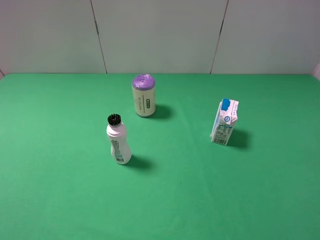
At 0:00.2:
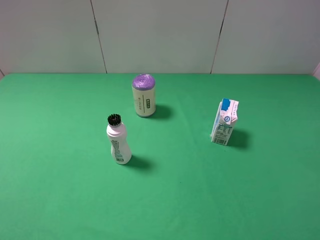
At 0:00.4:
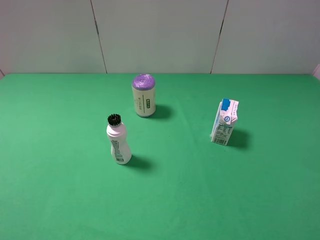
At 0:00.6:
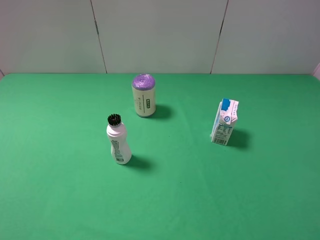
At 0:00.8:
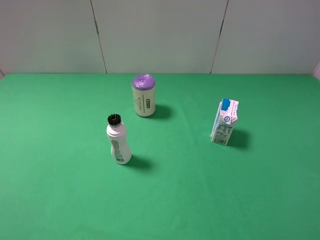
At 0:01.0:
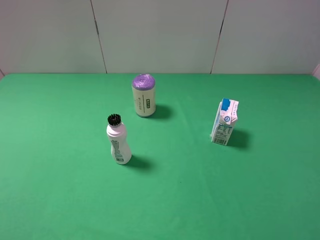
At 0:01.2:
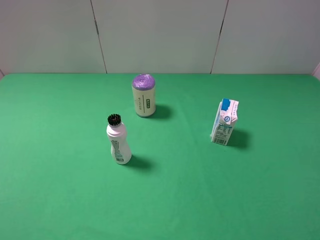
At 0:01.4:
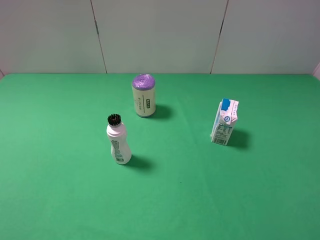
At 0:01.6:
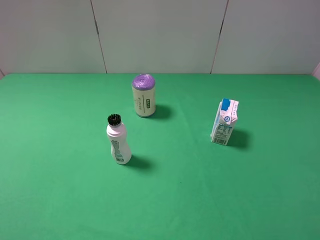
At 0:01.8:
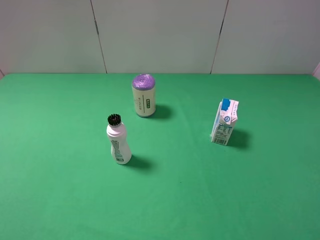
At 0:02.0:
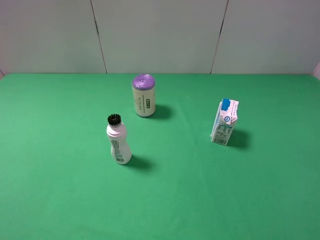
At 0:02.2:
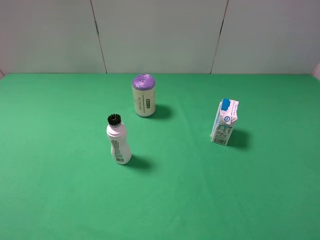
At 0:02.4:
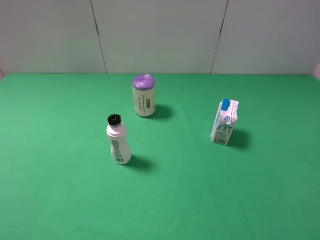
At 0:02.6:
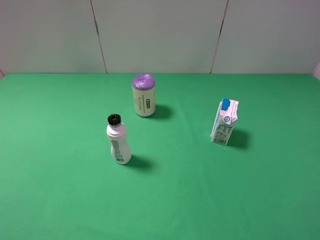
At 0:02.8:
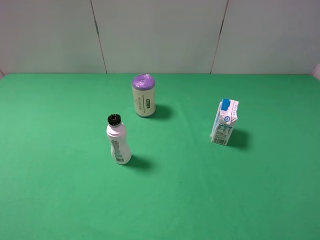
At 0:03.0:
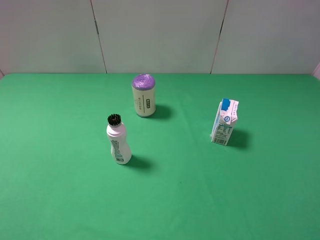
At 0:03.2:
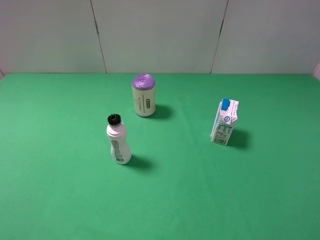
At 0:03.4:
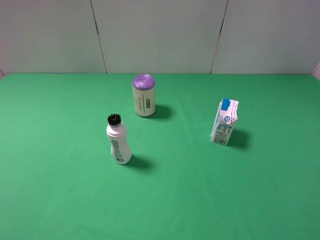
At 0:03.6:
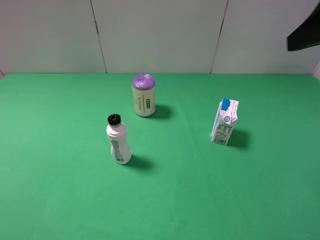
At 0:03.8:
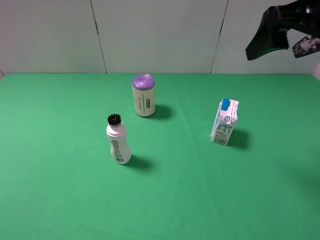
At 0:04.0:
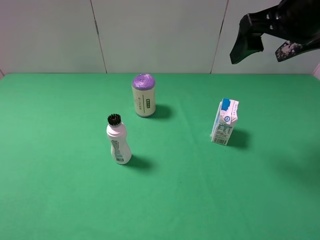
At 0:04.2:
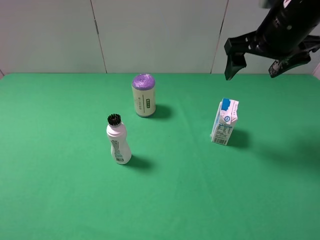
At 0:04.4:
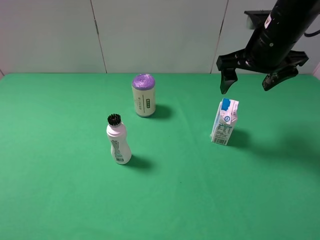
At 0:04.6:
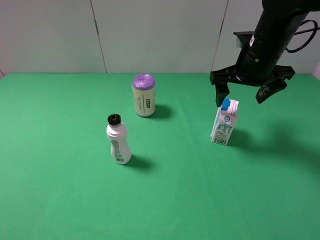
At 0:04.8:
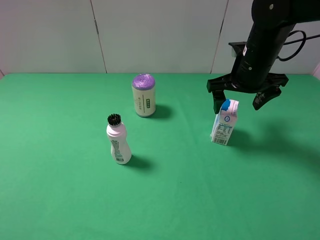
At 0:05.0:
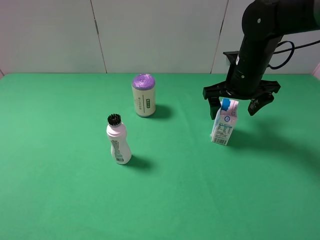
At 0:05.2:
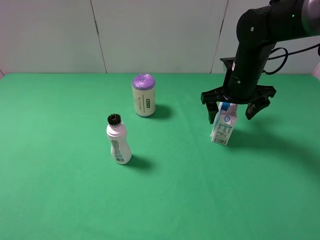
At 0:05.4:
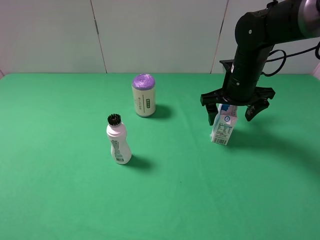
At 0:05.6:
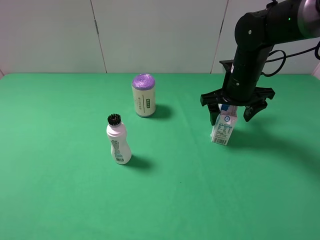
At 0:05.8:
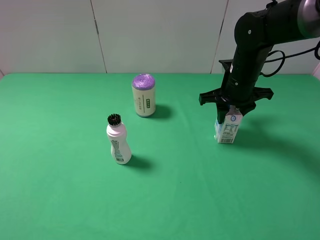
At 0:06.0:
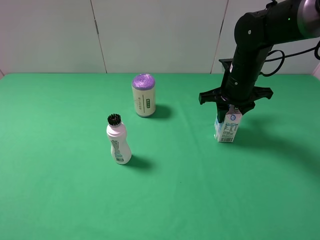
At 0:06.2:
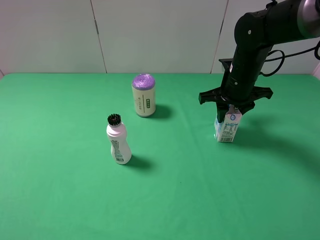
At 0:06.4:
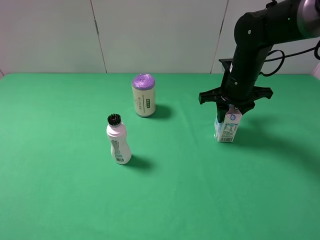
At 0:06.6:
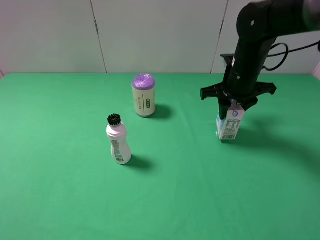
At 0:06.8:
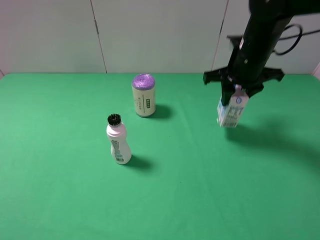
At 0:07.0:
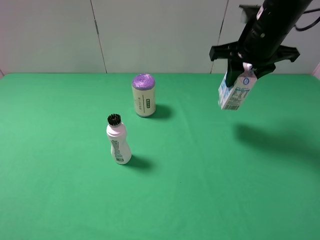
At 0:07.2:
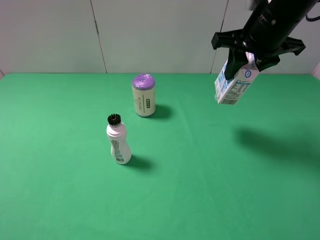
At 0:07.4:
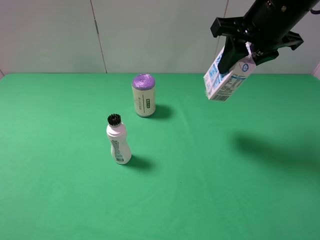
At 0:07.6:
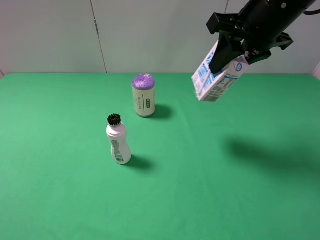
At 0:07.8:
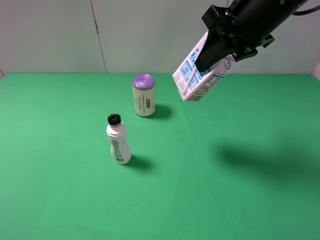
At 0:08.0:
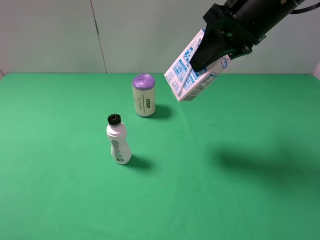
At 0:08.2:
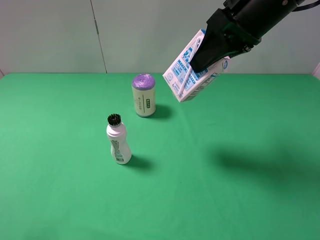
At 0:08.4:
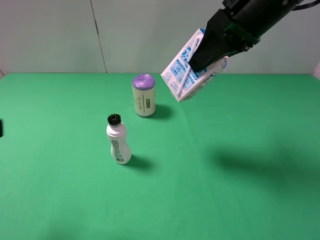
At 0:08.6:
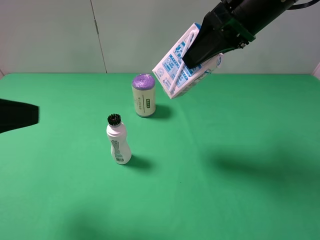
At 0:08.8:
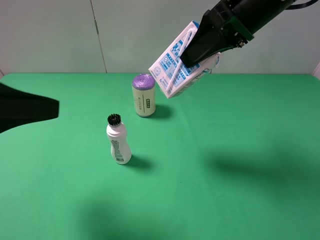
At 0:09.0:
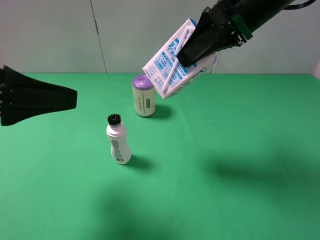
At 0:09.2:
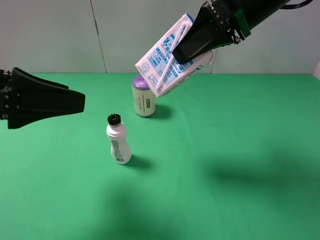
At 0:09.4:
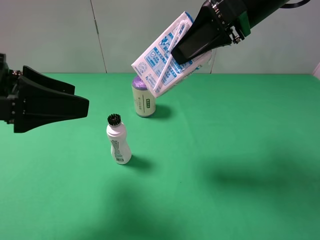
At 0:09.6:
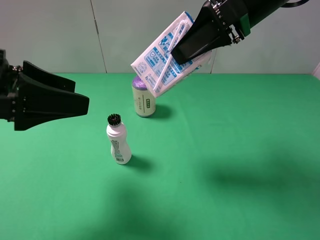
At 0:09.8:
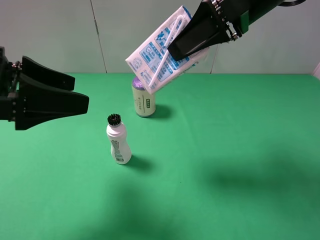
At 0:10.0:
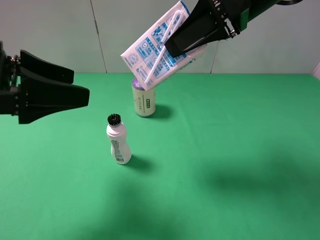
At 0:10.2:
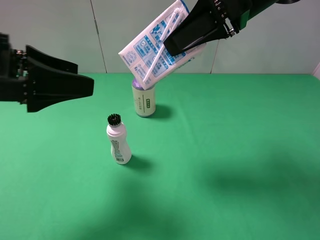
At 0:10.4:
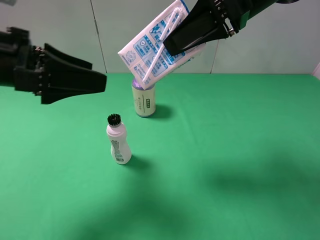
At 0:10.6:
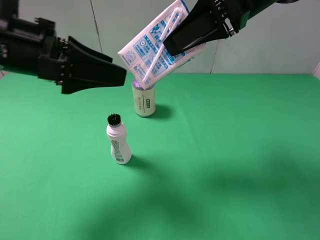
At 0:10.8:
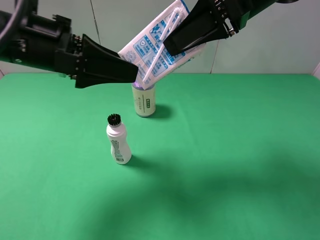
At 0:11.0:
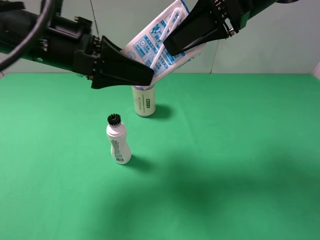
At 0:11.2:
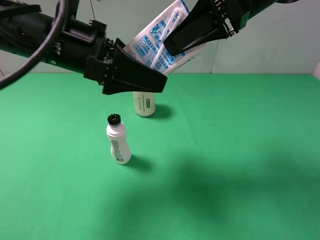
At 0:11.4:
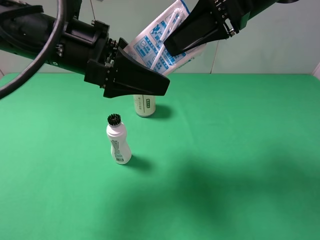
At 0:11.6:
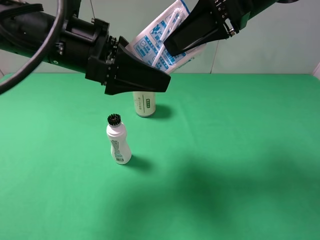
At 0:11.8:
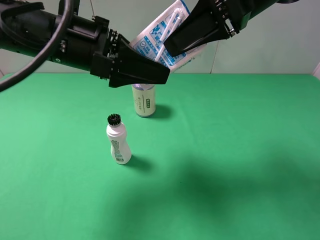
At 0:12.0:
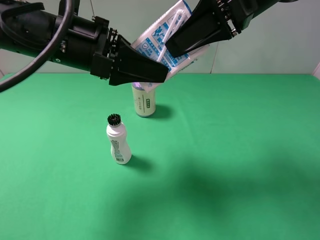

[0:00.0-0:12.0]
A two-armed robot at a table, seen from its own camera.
Task of the whole recording: use the right gripper to pick up the item and transfer it from the right gripper to the left gripper.
0:00.0 to 0:01.6: The two grippers keep their place.
0:03.0 to 0:04.4: The right gripper heads forward, downward and to the left, covering approximately 30 cm.
0:04.4 to 0:06.0: The right gripper travels downward by roughly 10 cm, and closes its fingers.
0:06.0 to 0:07.6: The right gripper shifts approximately 15 cm upward.
0:07.6 to 0:09.0: The left gripper heads forward and to the right, covering approximately 15 cm.
0:09.0 to 0:10.4: The left gripper shifts some 5 cm forward.
0:10.4 to 0:12.0: The left gripper goes about 10 cm to the right, and closes.

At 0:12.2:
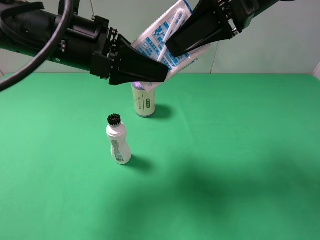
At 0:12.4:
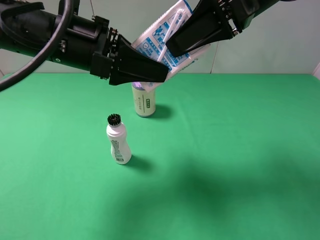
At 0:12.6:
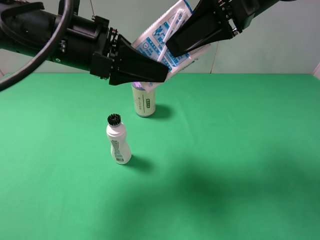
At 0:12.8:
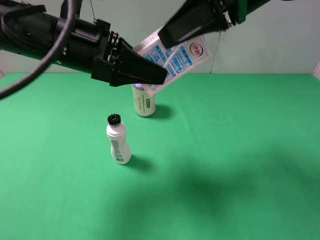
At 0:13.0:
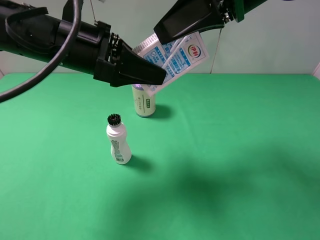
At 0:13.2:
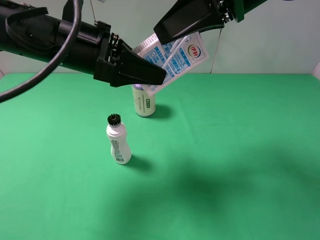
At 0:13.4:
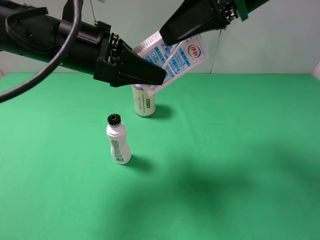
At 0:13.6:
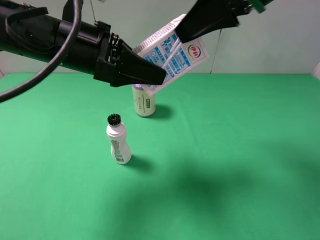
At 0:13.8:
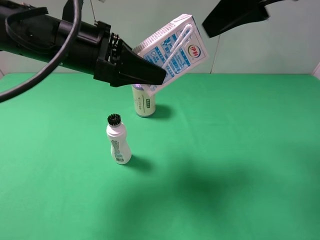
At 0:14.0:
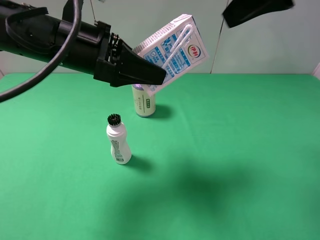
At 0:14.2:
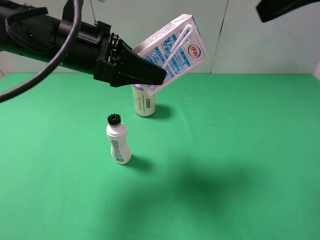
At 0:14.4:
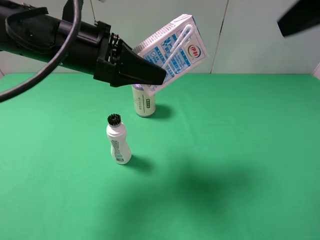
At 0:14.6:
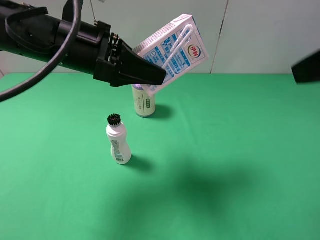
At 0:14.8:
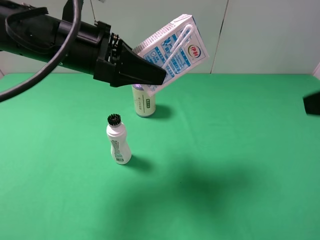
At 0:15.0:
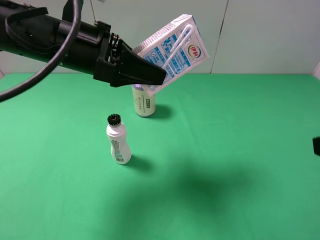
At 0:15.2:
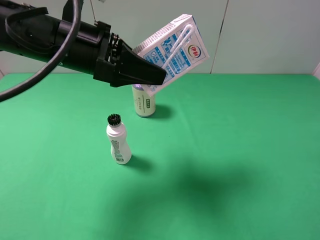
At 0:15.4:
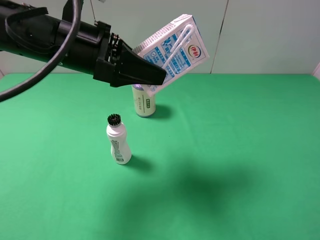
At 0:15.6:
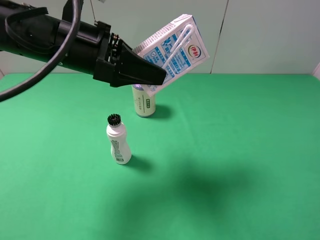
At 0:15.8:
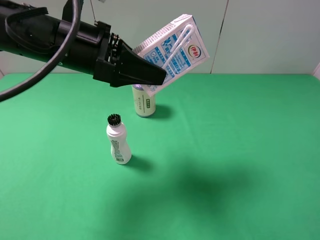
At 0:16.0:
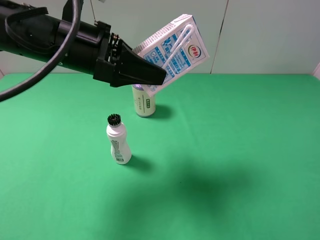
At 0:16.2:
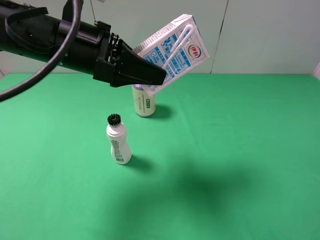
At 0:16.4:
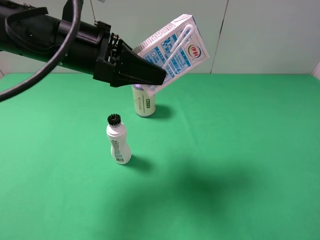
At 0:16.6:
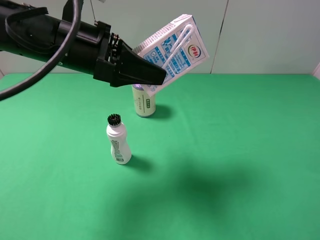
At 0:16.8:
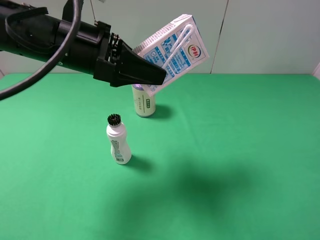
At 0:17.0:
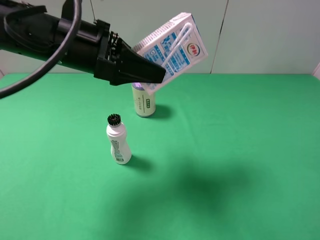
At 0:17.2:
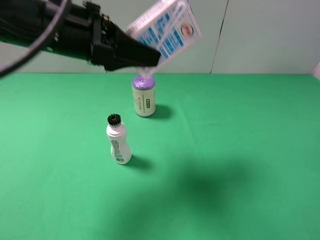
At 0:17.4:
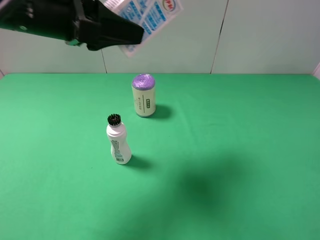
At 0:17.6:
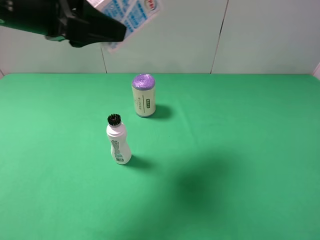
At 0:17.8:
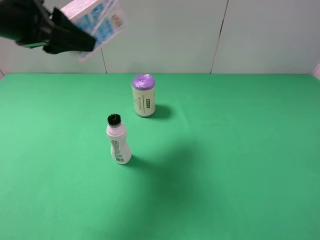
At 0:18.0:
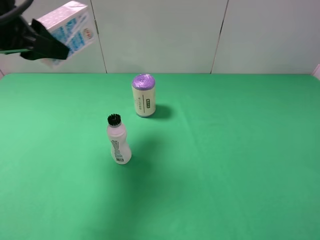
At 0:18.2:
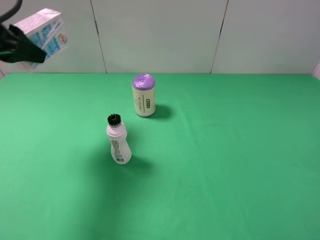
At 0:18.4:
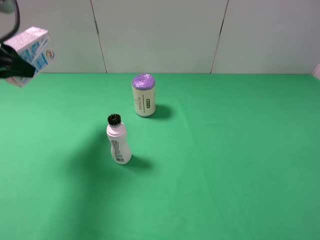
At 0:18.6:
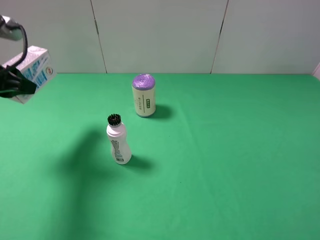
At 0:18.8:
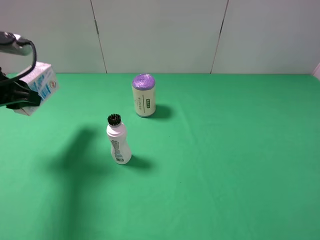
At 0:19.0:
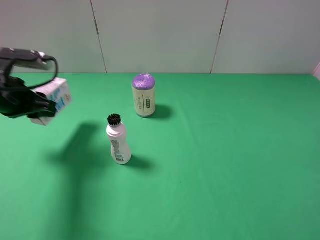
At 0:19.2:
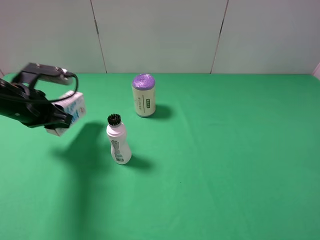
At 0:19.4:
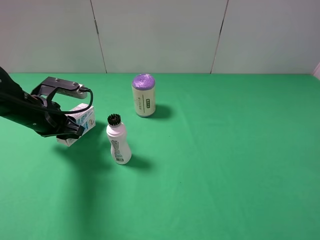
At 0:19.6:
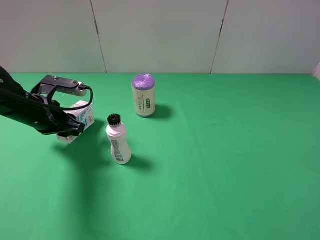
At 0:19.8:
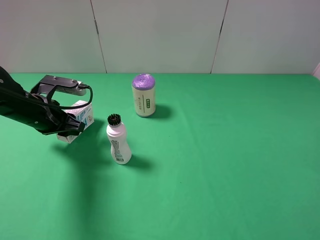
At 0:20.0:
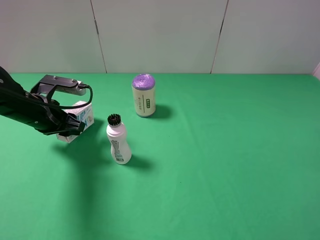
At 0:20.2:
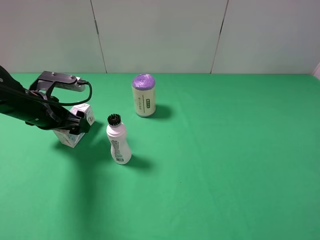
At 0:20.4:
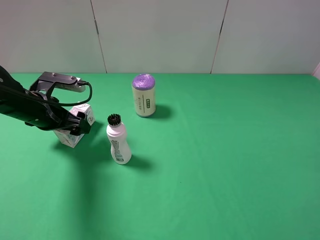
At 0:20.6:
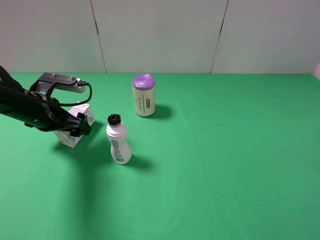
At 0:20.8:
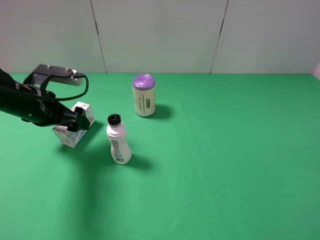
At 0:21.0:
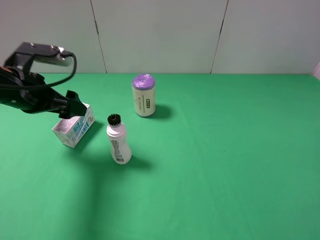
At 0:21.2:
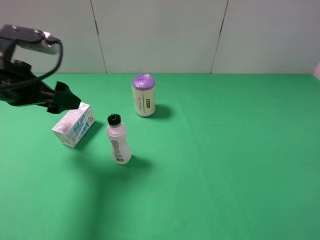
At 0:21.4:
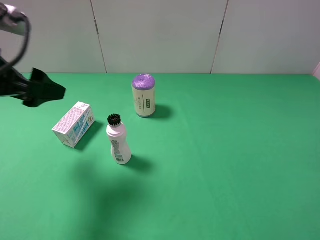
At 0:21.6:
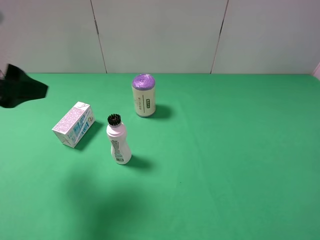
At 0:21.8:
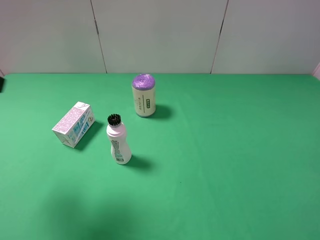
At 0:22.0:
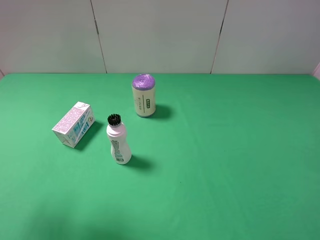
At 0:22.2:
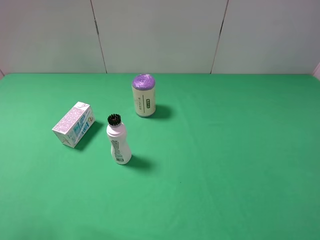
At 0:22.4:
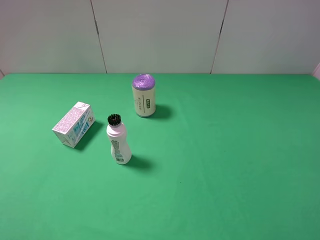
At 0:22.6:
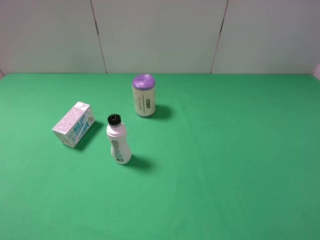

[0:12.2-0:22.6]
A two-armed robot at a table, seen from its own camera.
Task of the whole recording: use the right gripper to pick up the item and transfer it from the right gripper to the left gripper.
Step, 0:13.8 to 0:20.8: The left gripper places milk on the left side of the table.
0:12.2 to 0:13.6: The right gripper opens its fingers.
0:13.6 to 0:15.2: The right gripper moves backward, to the right and downward, approximately 30 cm.
0:16.6 to 0:18.2: The left gripper is displaced to the left by approximately 15 cm.
0:18.2 to 0:19.6: The left gripper moves downward, about 20 cm.
0:19.6 to 0:21.2: The left gripper goes some 10 cm upward, and opens its fingers.
0:21.2 to 0:22.6: The left gripper is displaced backward by about 25 cm.
